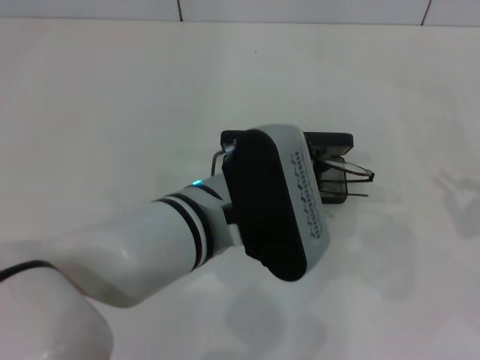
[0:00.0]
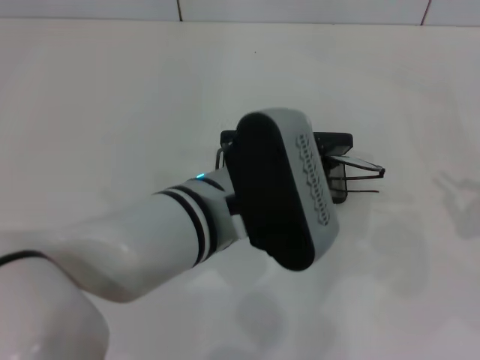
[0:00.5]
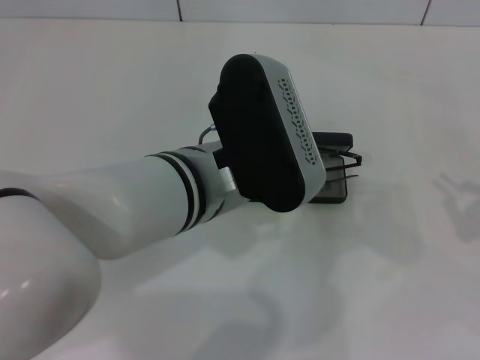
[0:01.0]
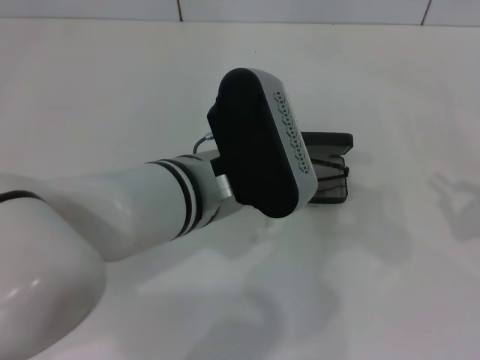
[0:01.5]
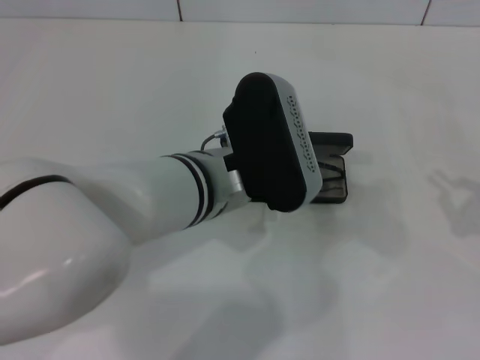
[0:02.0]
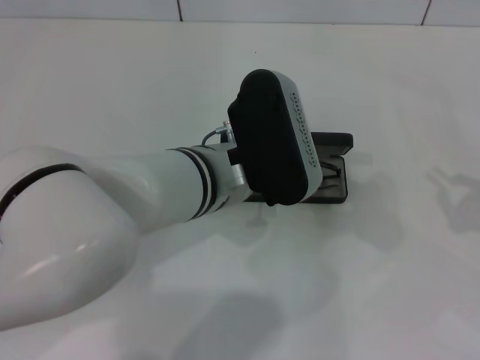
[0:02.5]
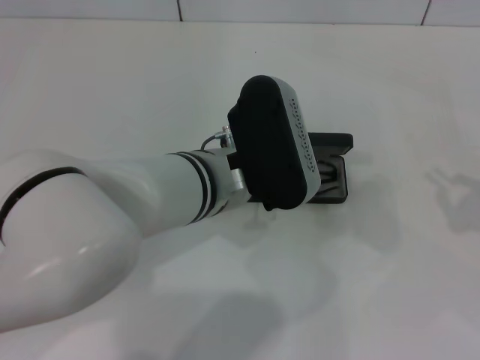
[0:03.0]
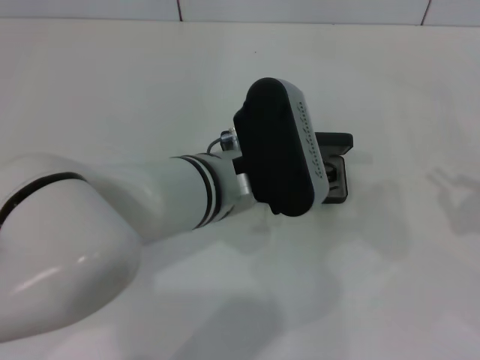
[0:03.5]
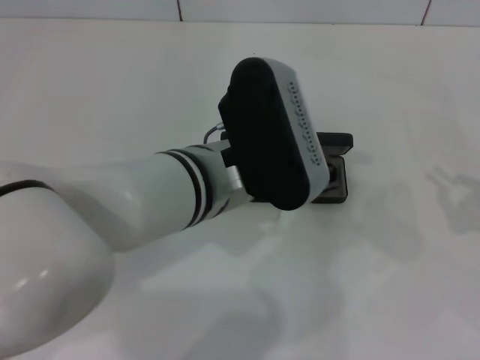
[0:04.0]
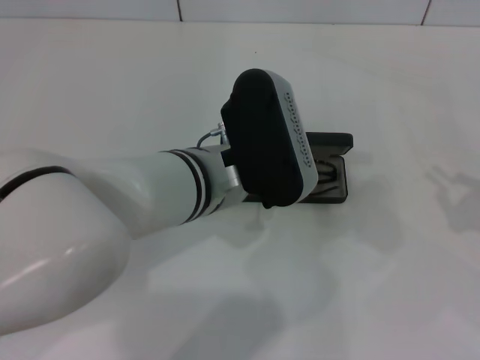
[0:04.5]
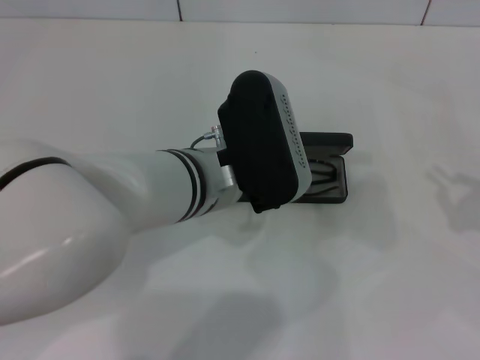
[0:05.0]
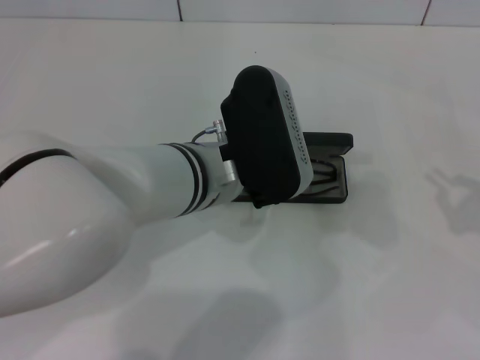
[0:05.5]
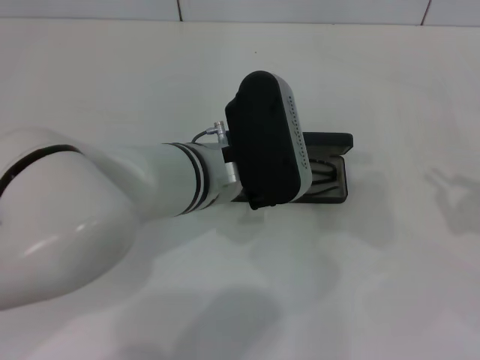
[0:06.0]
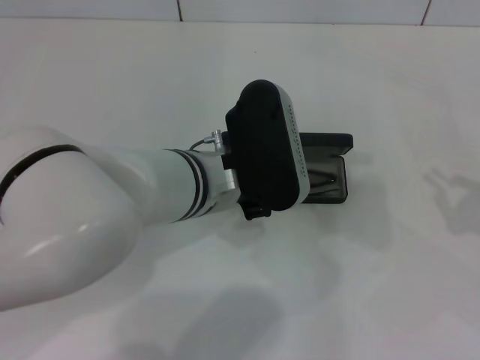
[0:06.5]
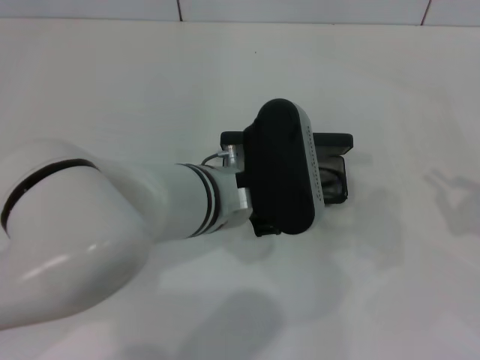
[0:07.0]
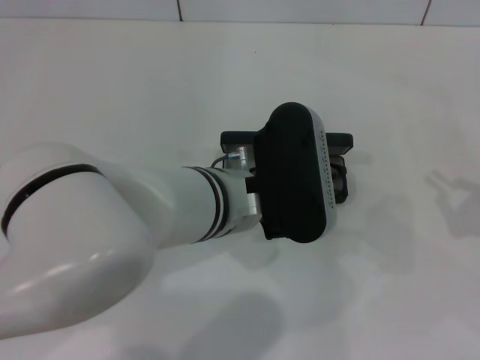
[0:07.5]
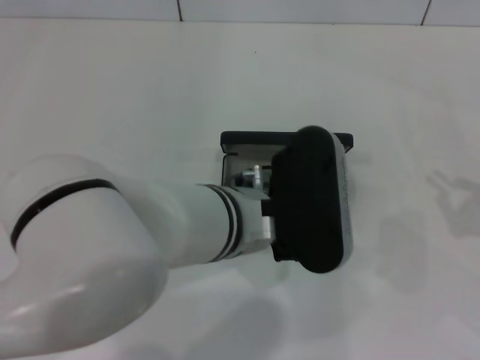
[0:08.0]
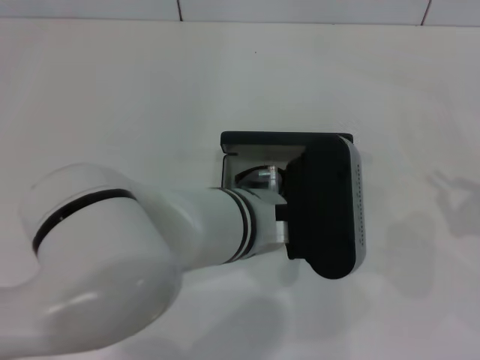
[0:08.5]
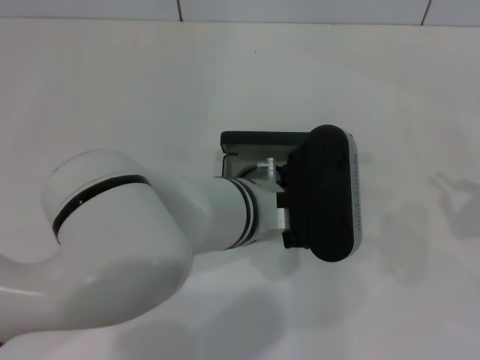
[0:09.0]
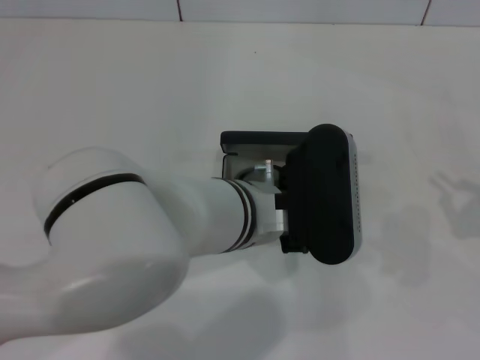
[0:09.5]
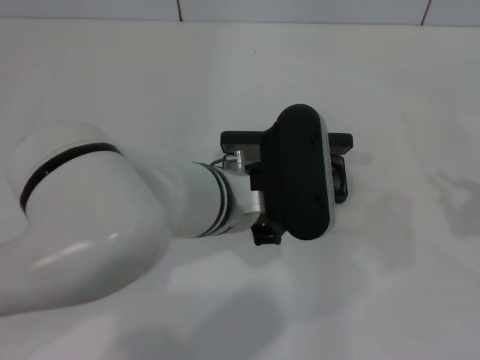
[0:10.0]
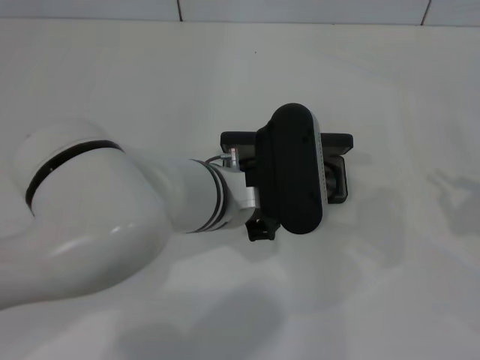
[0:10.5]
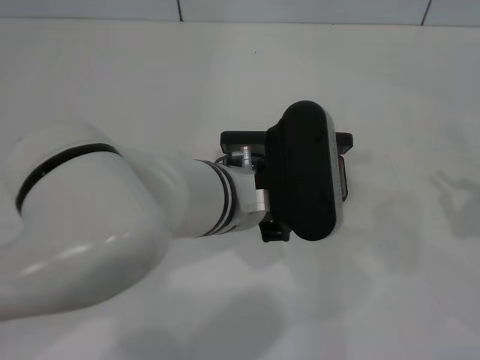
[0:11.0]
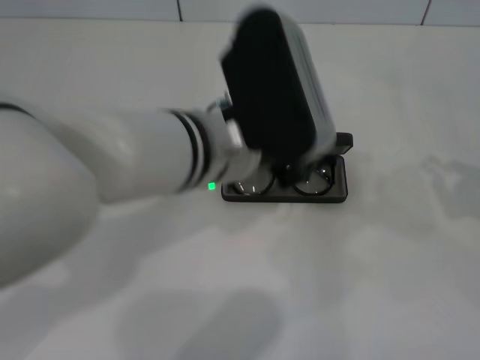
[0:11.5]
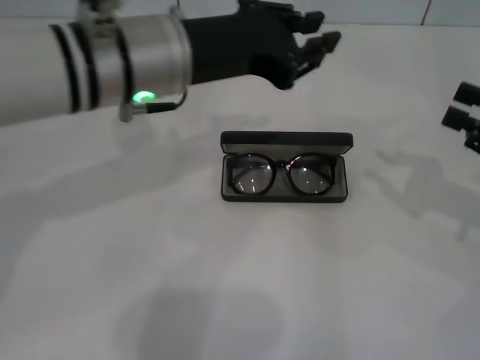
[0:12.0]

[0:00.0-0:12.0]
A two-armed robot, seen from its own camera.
Step, 0:00.0 to 0:03.5: Put the glasses into the case with your left hand.
0:00.0 to 0:06.0: The grippers make only small movements.
0:06.0 to 0:10.0: The grippers stay close to where they were, moving slightly.
0:10.0 to 0:12.0: The right gripper moves forward, about 5 cm, while the left gripper goes some 10 cm upward and to the left.

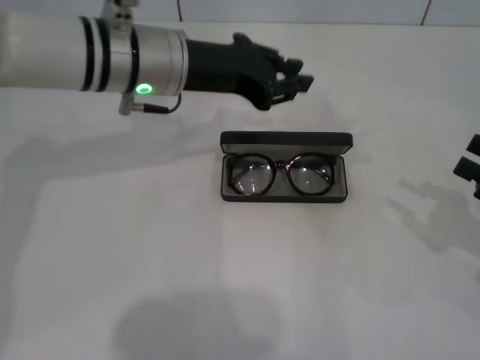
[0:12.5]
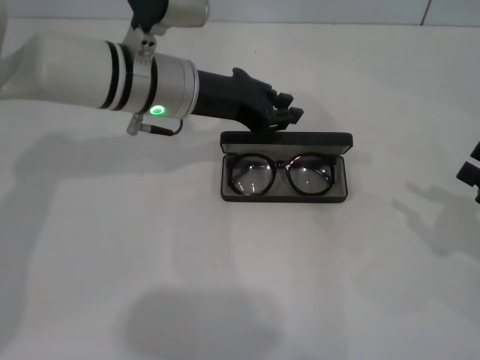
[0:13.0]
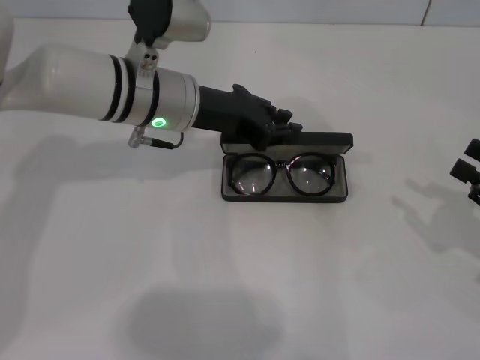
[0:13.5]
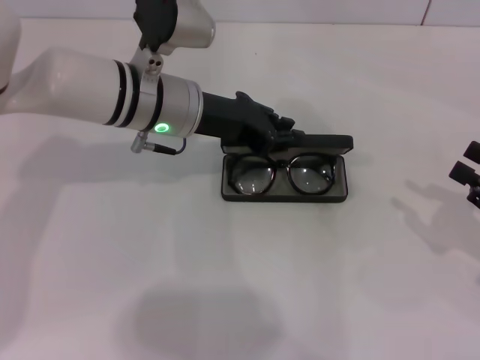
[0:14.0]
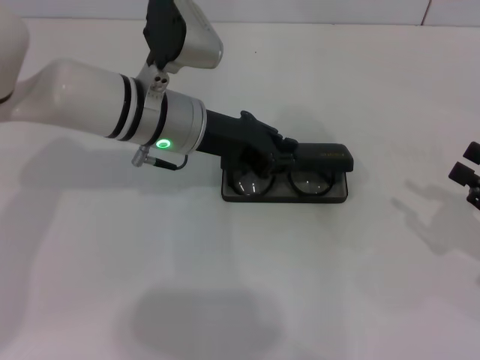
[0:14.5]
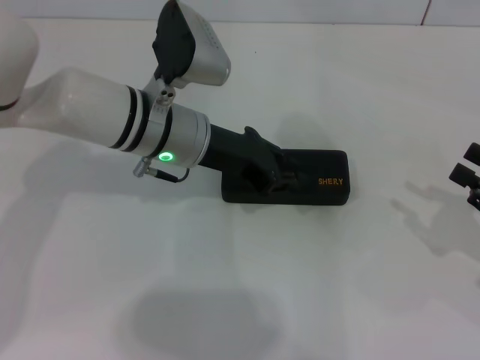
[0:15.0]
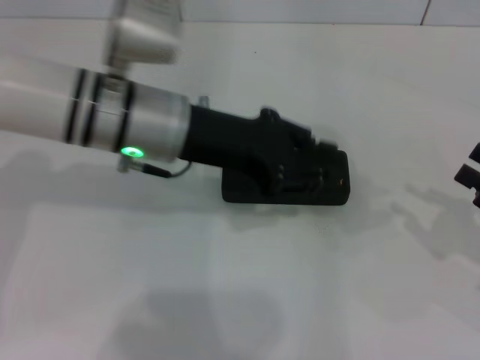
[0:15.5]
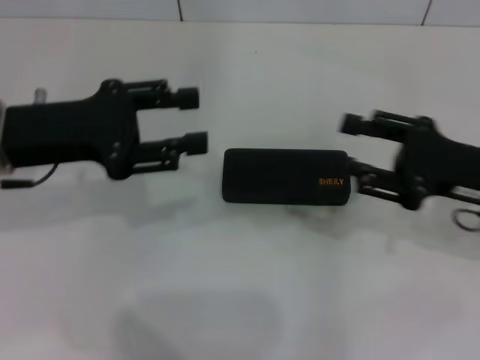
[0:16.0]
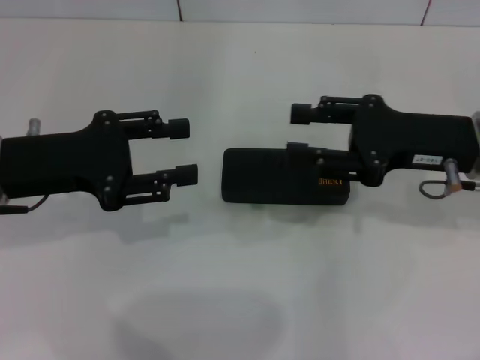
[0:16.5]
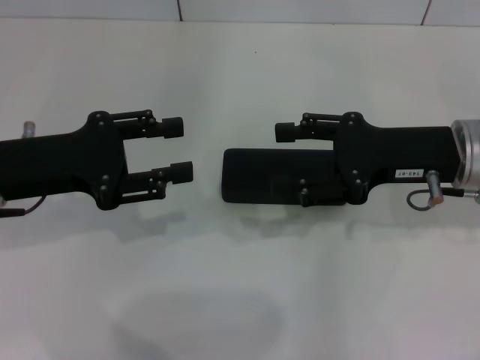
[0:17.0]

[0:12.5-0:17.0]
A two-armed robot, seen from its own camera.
Step, 0:12.5 to 0:15.0: Close the glasses case with your left hand.
0:12.5 to 0:14.5: The left gripper is displaced downward by roughly 5 cm.
0:14.5 to 0:17.0: The left gripper moves to the left and backward, about 20 cm, and opens, while the right gripper travels to the left, forward and upward by about 20 cm, and opens its fingers.

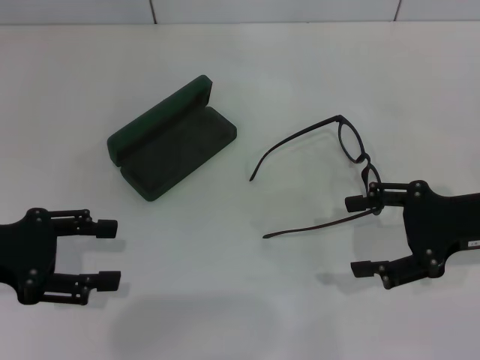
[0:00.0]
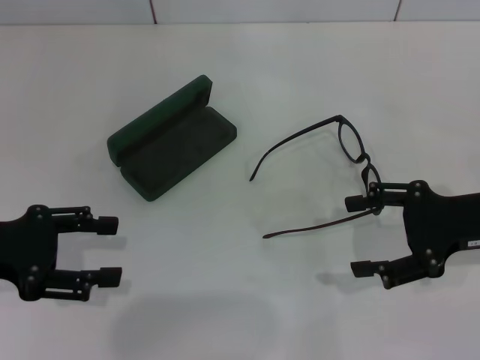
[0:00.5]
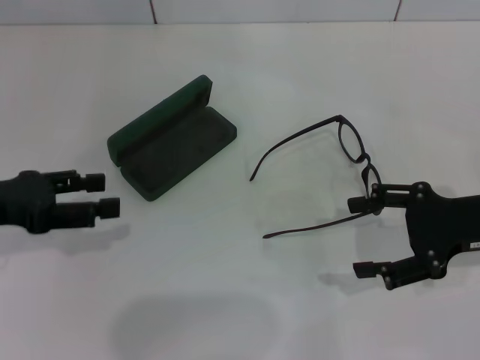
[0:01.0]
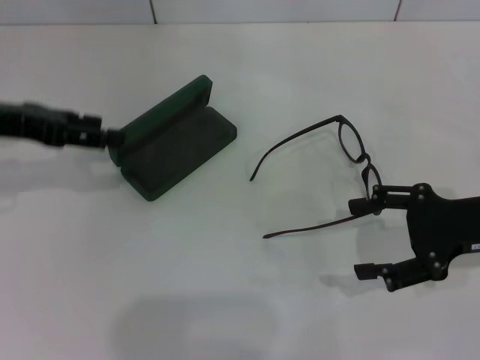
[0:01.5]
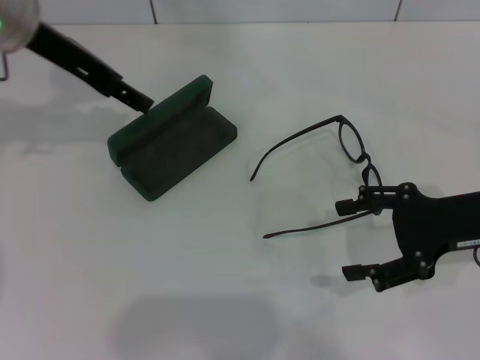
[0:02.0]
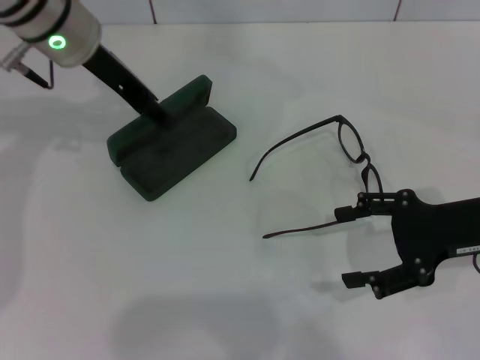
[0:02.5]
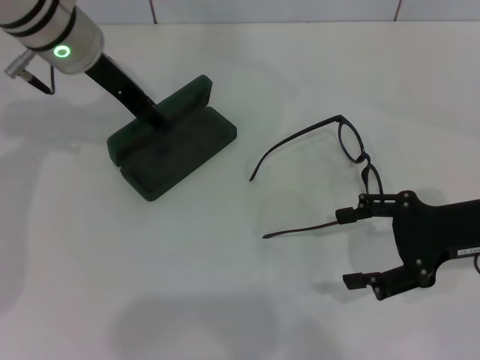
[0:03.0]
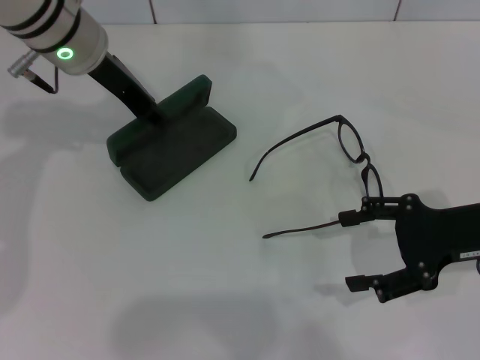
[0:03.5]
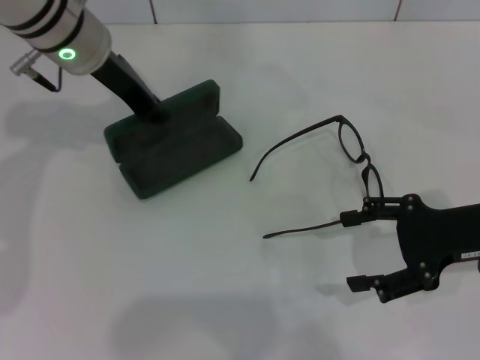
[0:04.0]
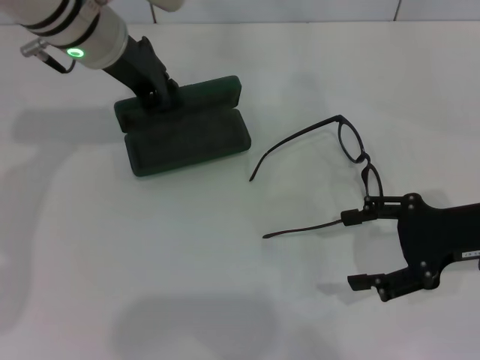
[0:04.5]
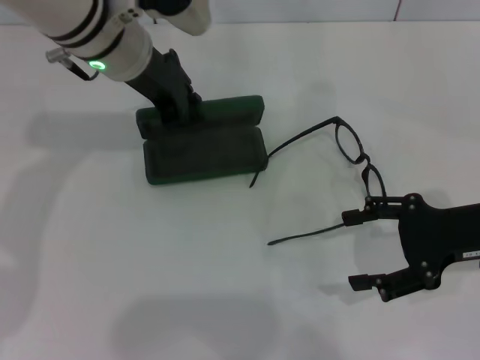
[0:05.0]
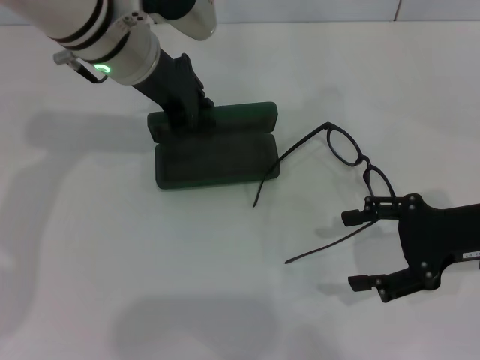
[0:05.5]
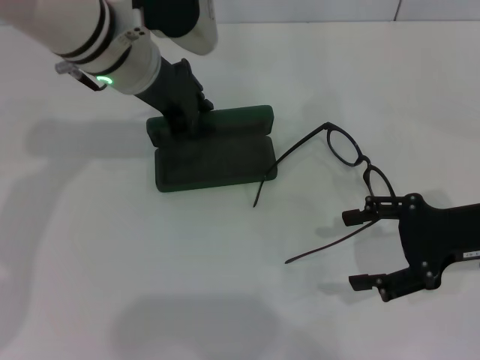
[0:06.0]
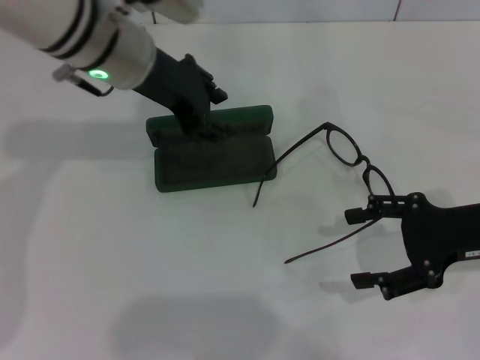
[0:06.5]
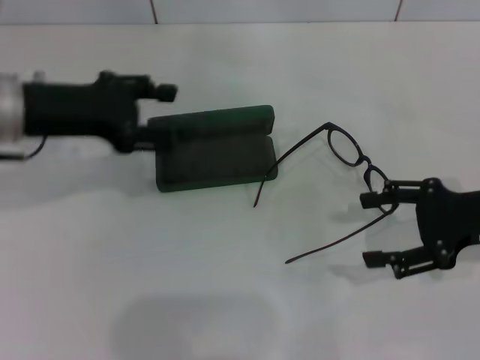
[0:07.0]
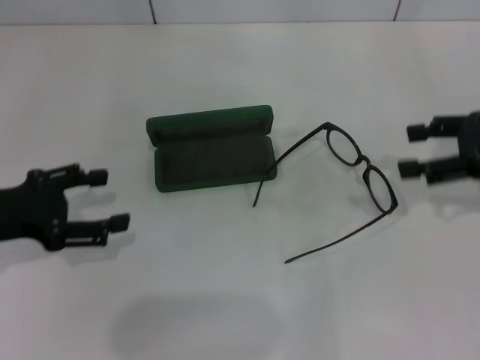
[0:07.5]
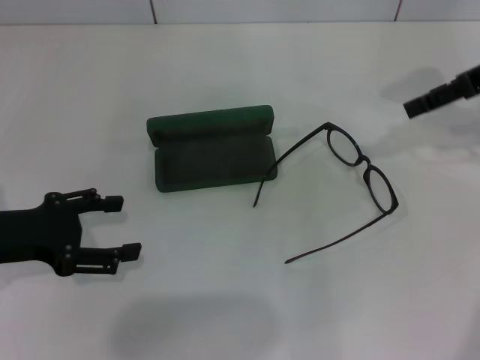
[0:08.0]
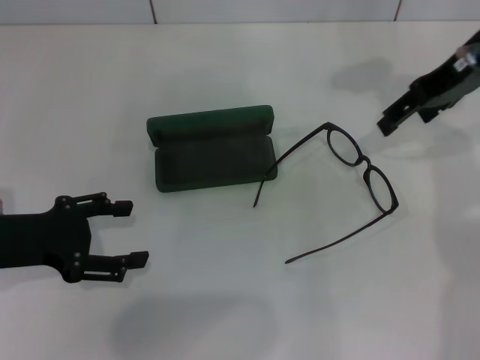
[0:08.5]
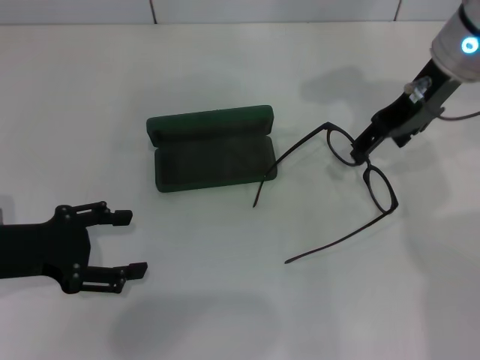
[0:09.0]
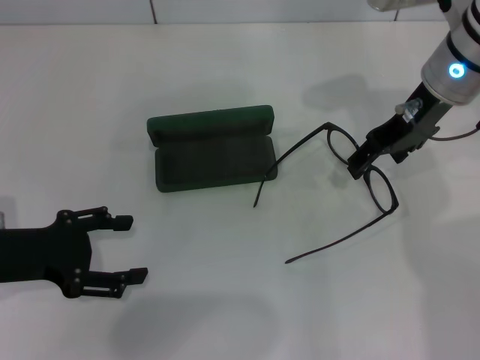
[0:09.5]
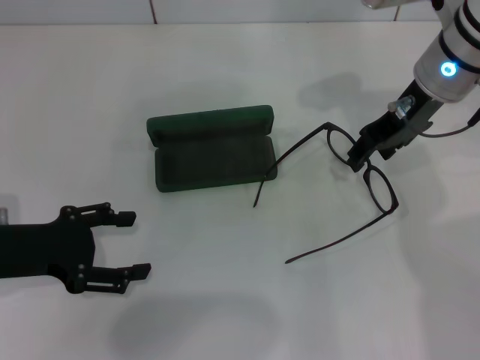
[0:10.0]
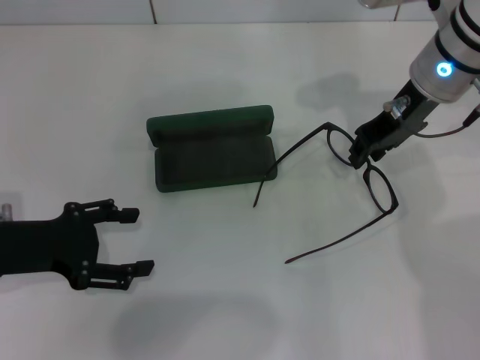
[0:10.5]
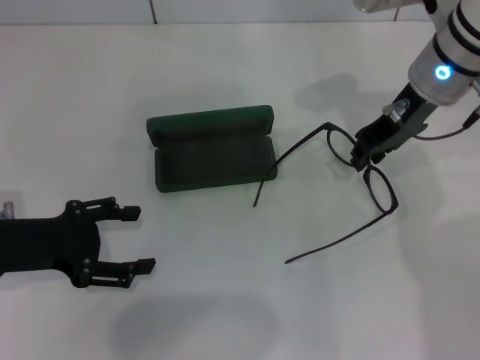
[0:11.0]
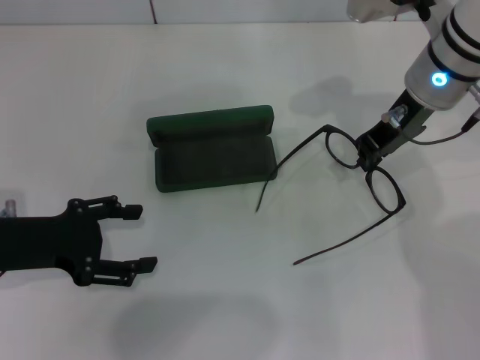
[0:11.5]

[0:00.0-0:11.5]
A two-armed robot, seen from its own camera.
Step, 0:00.0 to 0:03.0: Grab the glasses case with your left hand.
Step, 0:03.5 to 0:06.5: Place the glasses case in the center of the table with your left hand.
0:00.0 to 0:02.0: The left gripper heads forward, upward and to the right, covering about 25 cm.
0:02.0 to 0:04.0: The left gripper goes approximately 5 cm to the right, and closes.
0:06.0 to 0:07.5: The right gripper heads upward, covering roughly 5 cm, while the left gripper shifts roughly 25 cm to the left and backward, and opens.
0:07.5 to 0:09.5: The right gripper travels to the left and forward by roughly 15 cm.
0:09.5 to 0:11.5: The right gripper closes its fingers.
